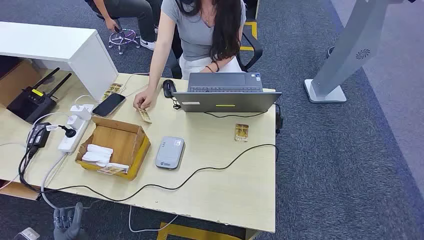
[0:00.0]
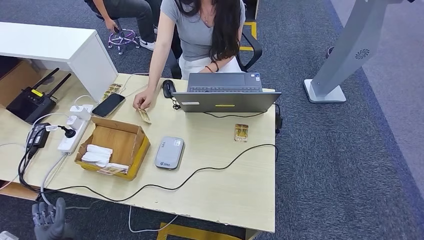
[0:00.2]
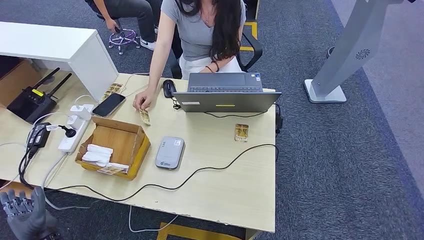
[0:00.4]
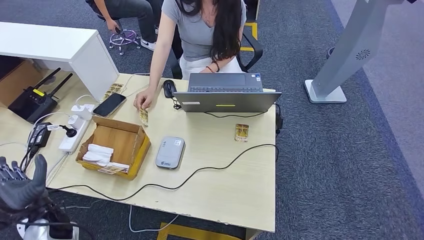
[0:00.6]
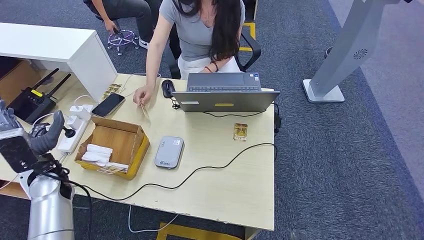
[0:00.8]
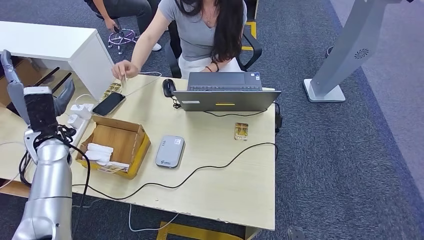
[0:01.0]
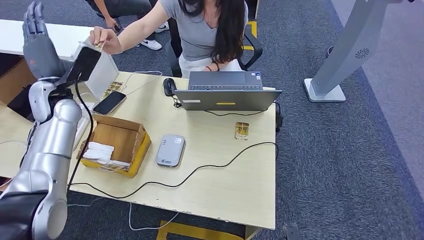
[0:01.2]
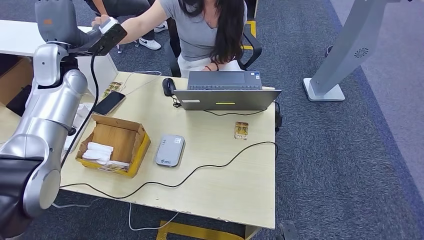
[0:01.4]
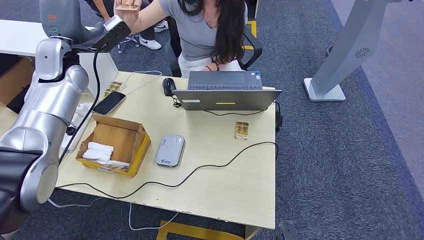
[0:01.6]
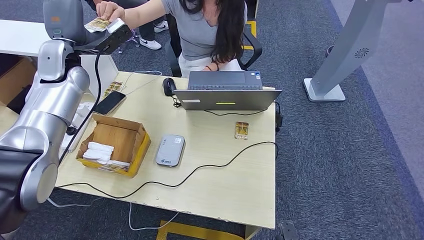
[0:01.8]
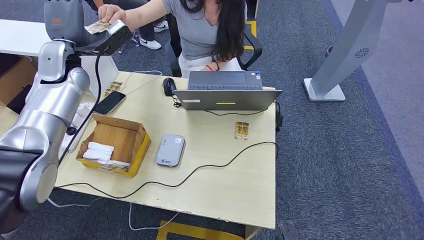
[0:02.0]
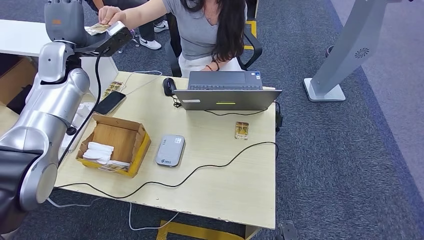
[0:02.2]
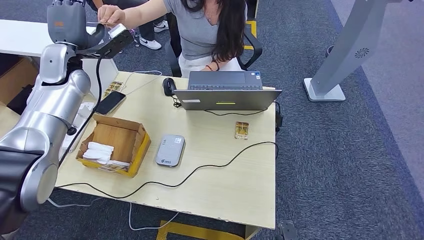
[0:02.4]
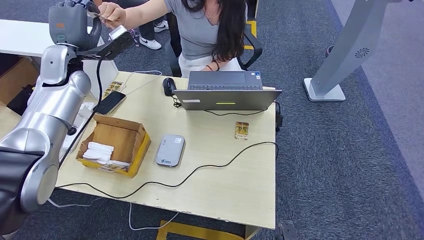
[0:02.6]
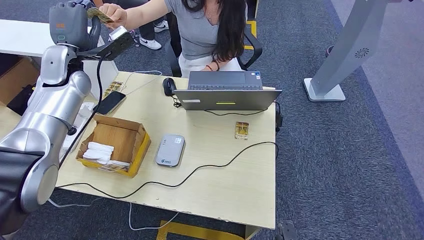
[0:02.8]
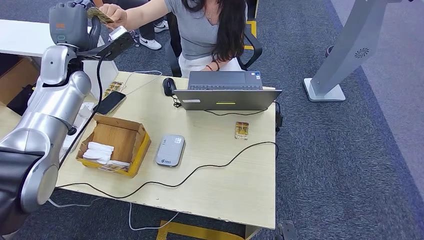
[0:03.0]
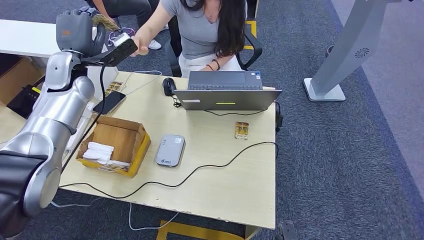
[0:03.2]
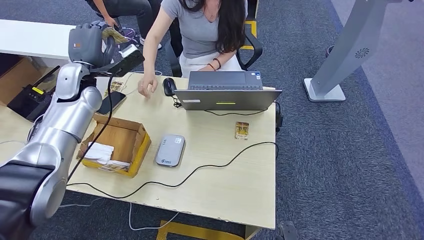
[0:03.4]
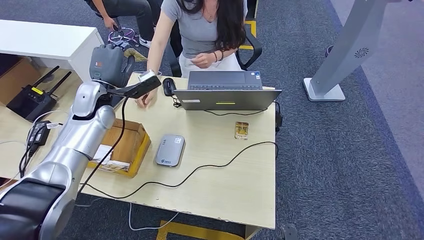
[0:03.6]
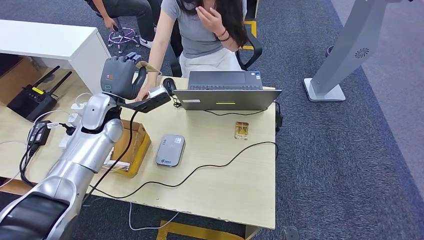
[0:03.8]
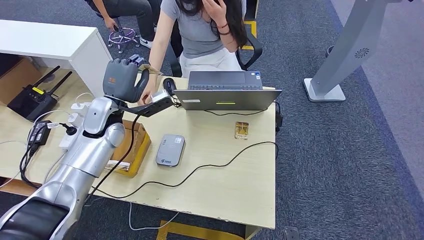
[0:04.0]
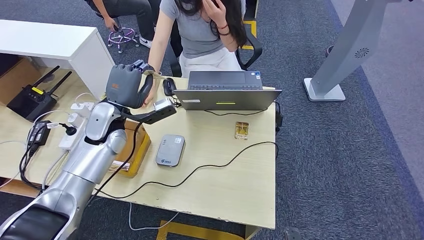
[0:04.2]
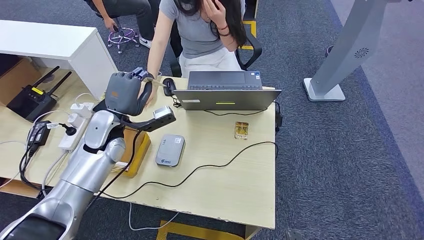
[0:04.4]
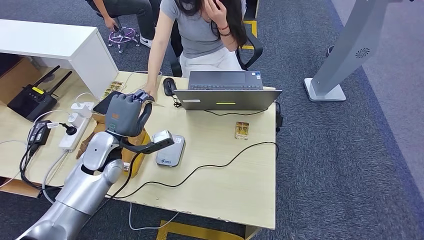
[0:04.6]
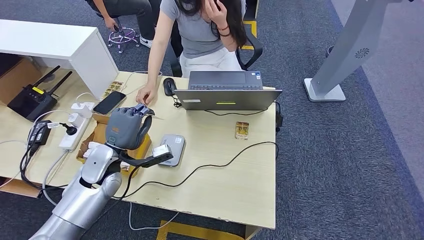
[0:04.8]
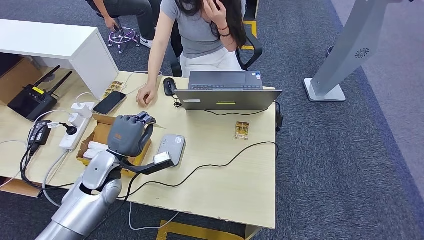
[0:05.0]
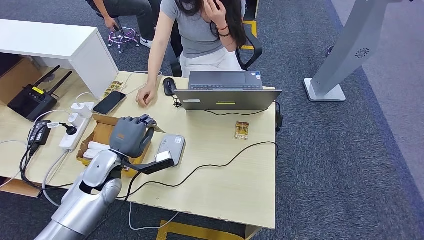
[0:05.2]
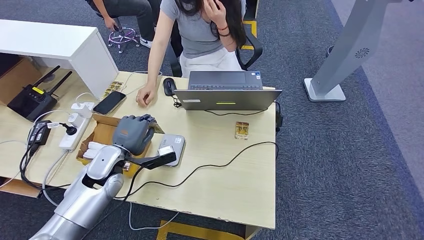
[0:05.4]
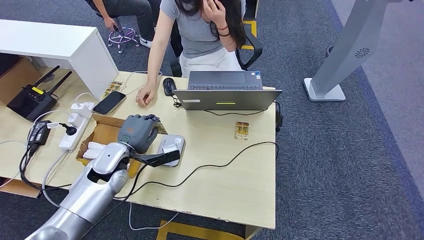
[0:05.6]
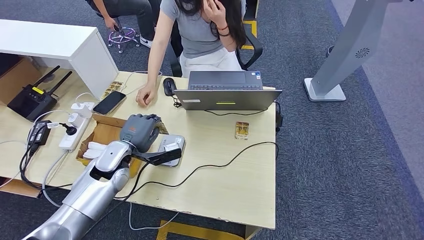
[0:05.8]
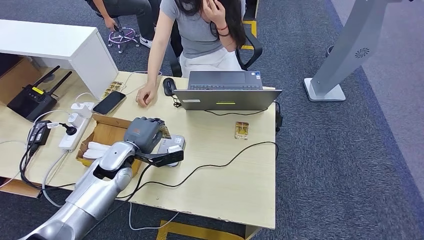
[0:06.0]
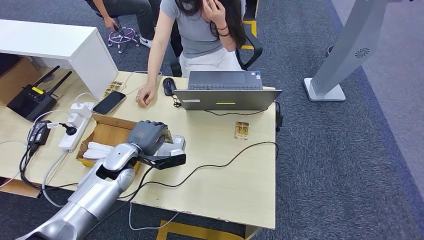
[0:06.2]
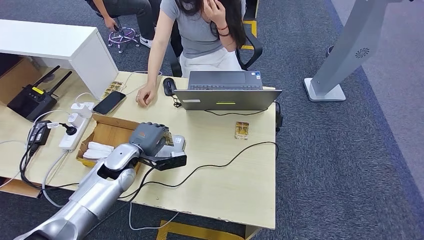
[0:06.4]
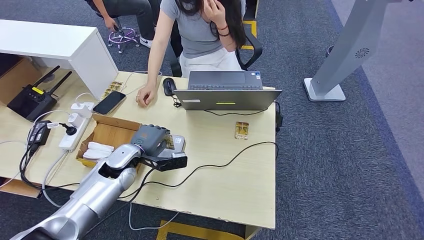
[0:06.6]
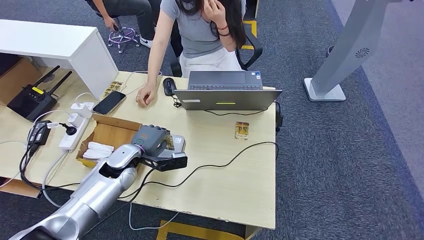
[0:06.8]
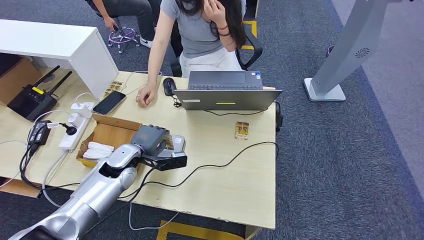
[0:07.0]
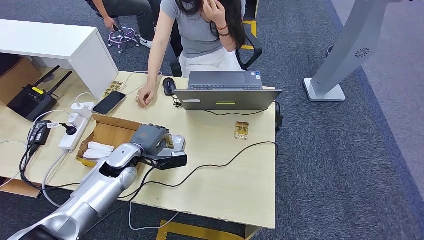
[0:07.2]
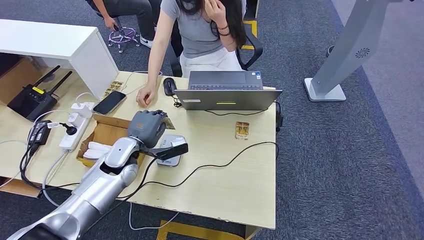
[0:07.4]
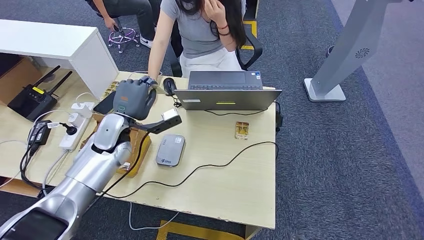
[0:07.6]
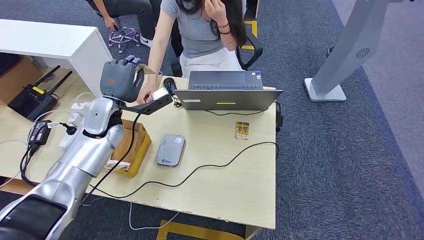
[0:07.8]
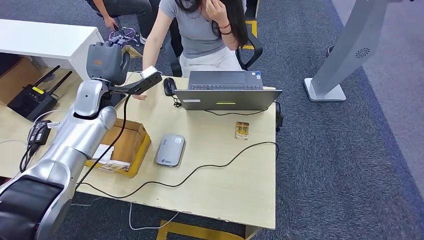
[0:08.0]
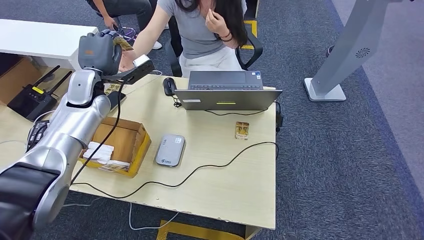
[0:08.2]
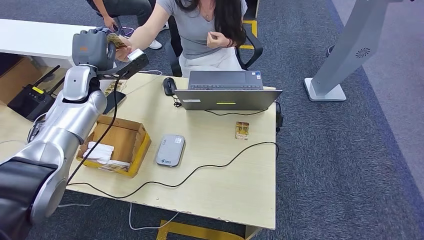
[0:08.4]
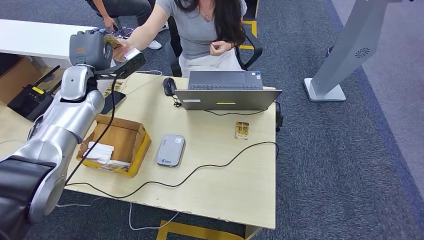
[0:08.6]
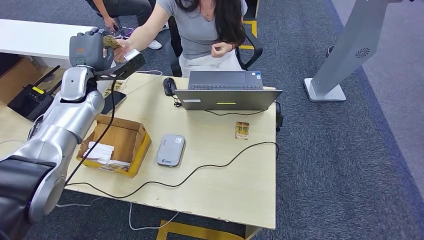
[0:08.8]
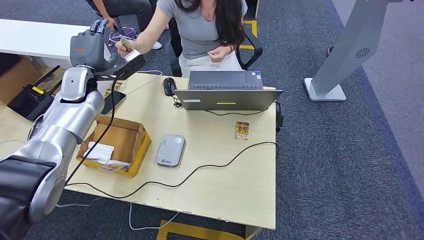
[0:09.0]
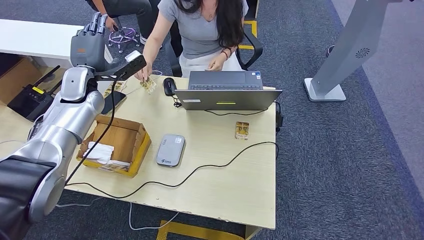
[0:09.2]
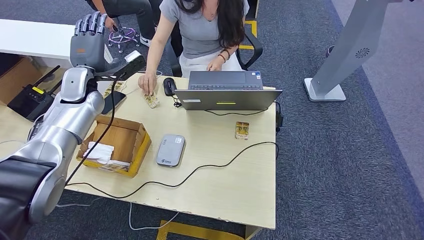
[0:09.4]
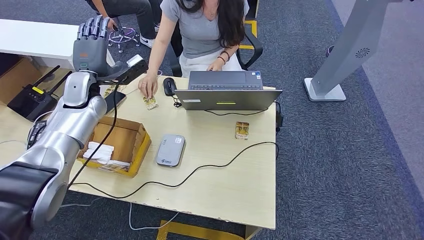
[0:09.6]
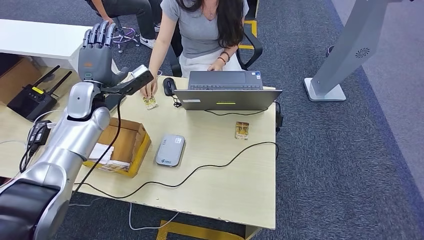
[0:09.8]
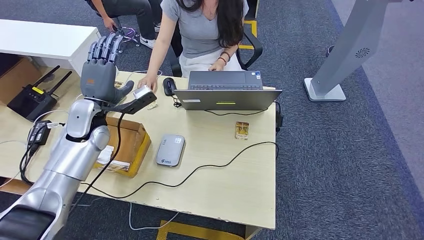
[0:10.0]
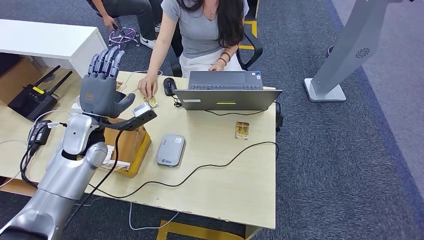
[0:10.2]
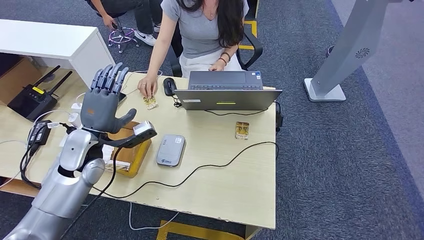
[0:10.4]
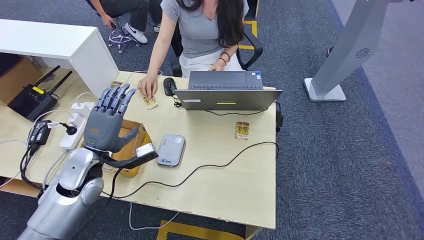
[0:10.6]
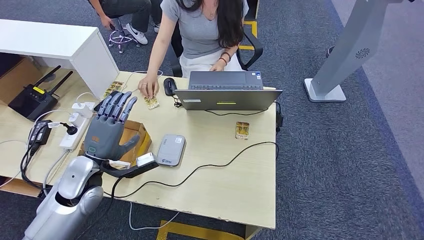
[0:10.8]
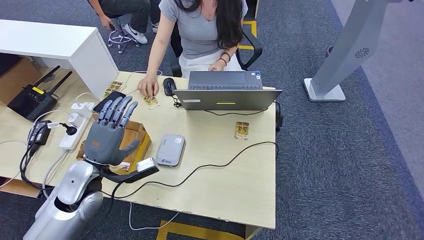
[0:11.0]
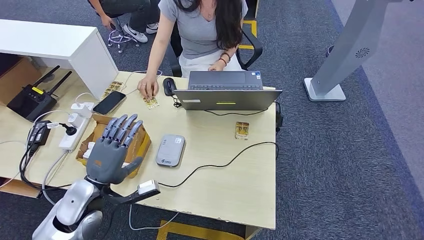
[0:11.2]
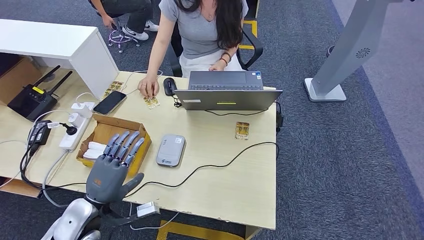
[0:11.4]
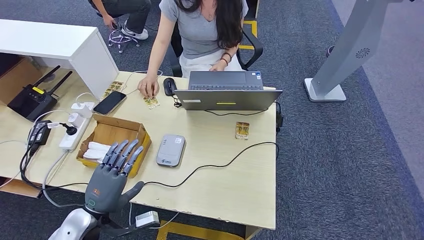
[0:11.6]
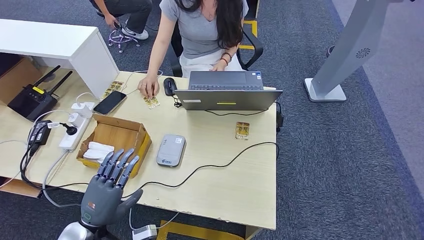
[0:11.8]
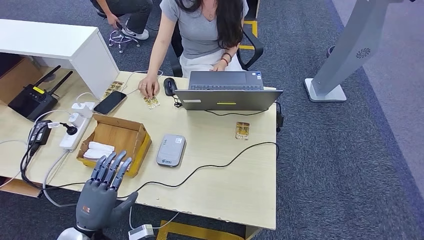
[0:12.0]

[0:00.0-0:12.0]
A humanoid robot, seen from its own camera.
Step, 0:00.0 to 0:03.0: Take the ID card from the person's hand.
Step, 0:05.0 to 0:07.8: Place the ID card on the card reader.
Step, 0:08.0 to 0:10.4: Hand the ID card to the person.
0:01.6 to 0:03.0: There are only small adjustments of the hands.
0:04.4 to 0:06.0: The left hand is displaced downward by some 10 cm.
0:06.0 to 0:07.6: The left hand heads upward, covering roughly 5 cm.
0:09.0 to 0:10.4: The left hand moves backward and downward, roughly 15 cm.
0:10.4 to 0:12.0: The left hand goes approximately 20 cm backward and downward.

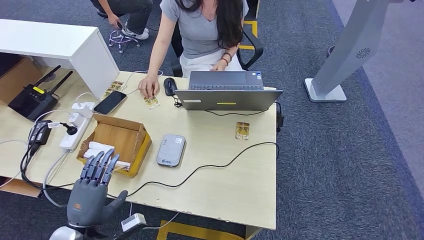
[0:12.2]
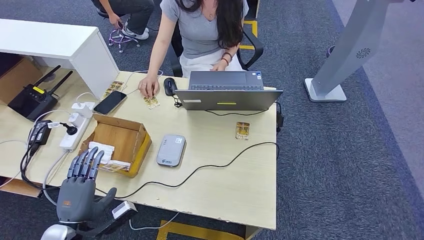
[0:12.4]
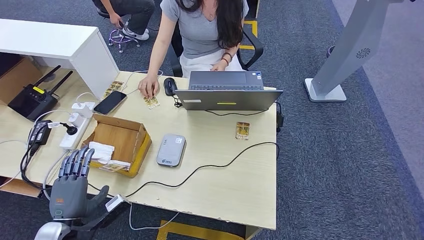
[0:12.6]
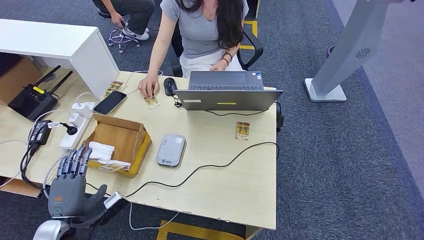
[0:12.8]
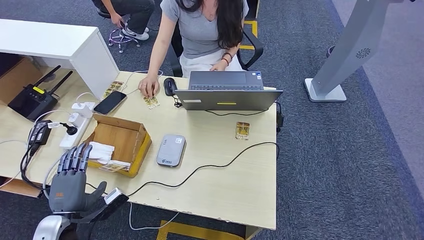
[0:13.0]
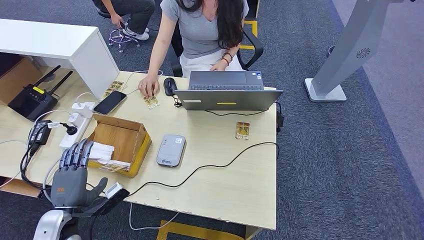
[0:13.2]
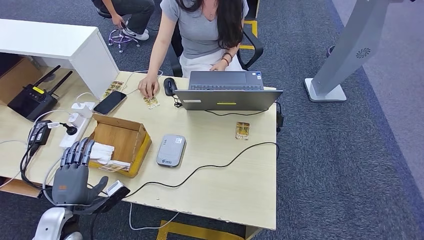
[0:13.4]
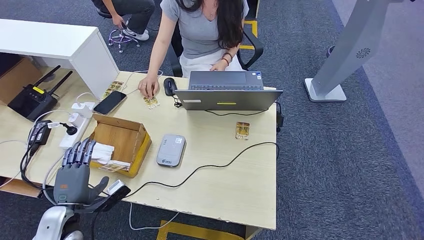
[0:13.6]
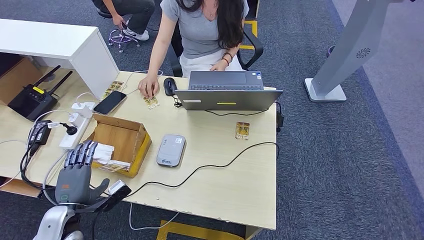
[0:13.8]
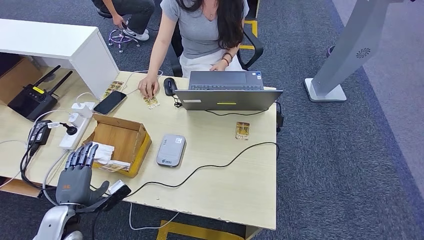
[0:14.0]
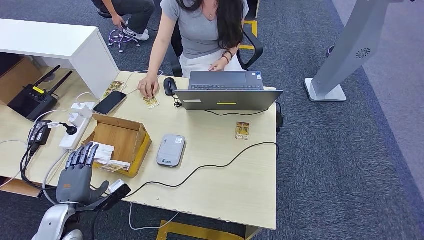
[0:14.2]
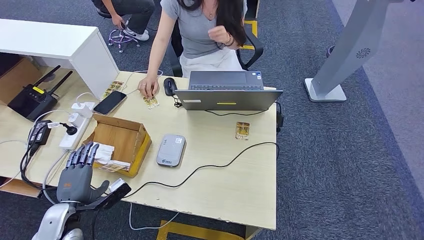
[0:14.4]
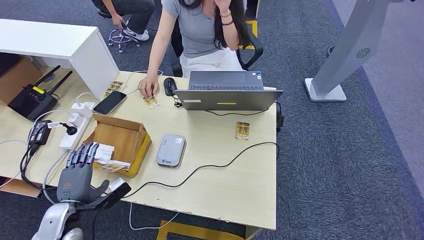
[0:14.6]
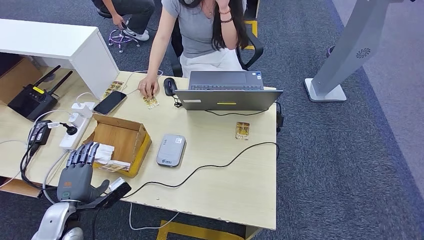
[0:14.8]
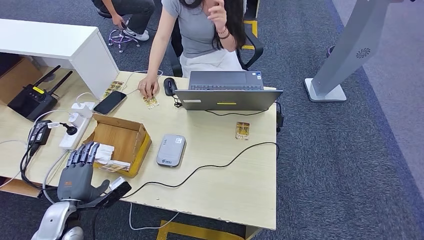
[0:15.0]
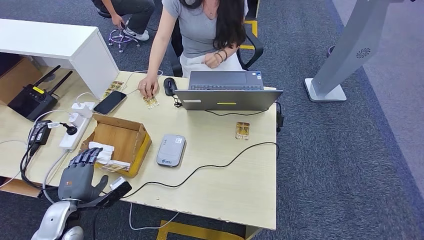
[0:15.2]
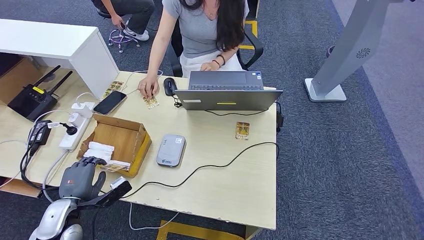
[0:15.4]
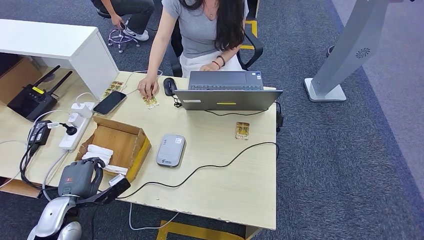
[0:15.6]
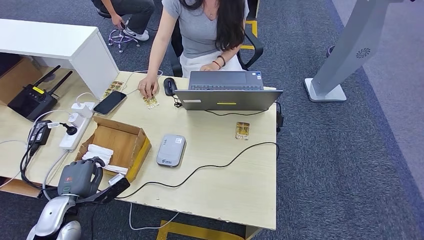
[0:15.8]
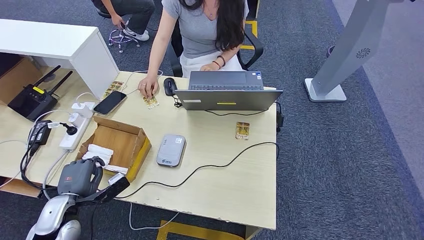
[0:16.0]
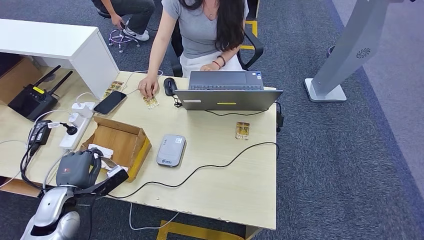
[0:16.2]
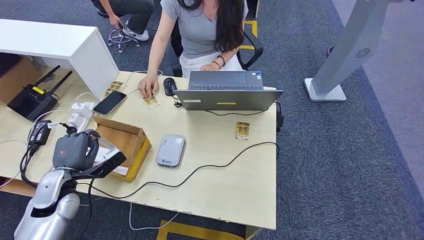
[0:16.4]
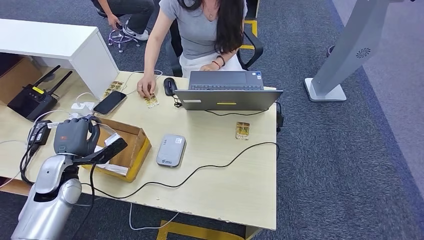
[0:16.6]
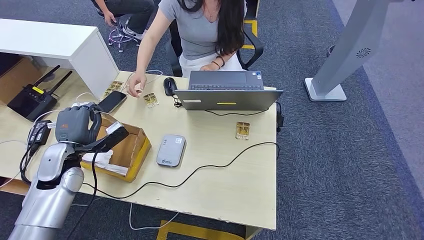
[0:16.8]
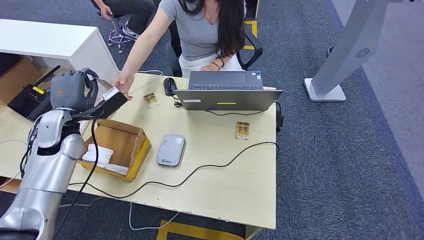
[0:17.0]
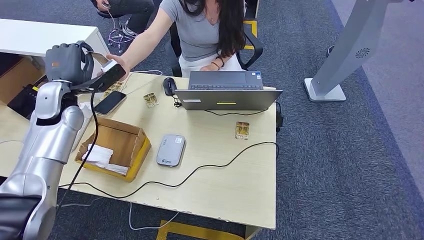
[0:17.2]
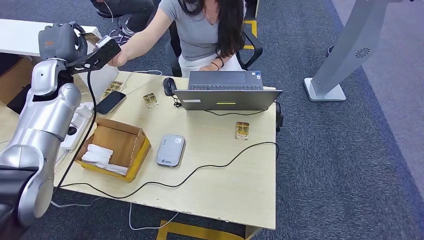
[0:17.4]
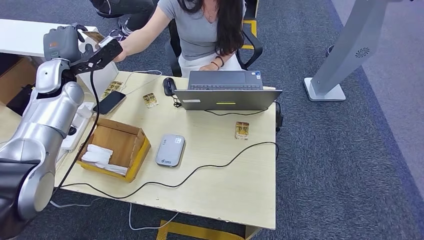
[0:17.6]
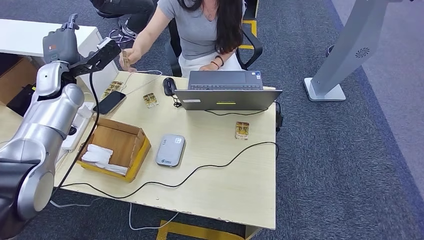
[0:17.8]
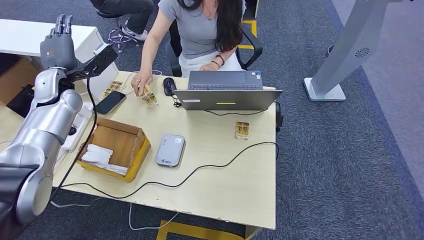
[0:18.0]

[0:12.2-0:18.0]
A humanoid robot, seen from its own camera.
Step, 0:15.0 to 0:17.0: Pick up the room key from the key card box.
0:12.2 to 0:13.6: The left hand is displaced to the left by approximately 5 cm.
0:13.6 to 0:15.0: The hands stay close to where they were, moving slightly.
0:15.0 to 0:16.6: The left hand moves forward and upward, about 10 cm.
0:16.6 to 0:18.0: The left hand shifts about 20 cm forward and upward.
